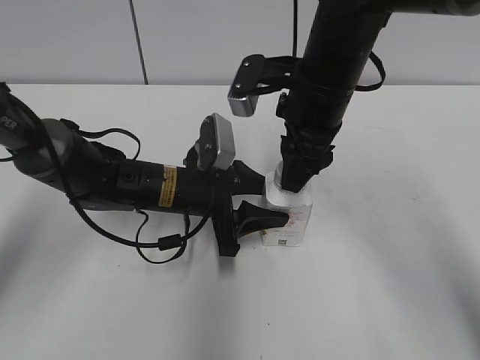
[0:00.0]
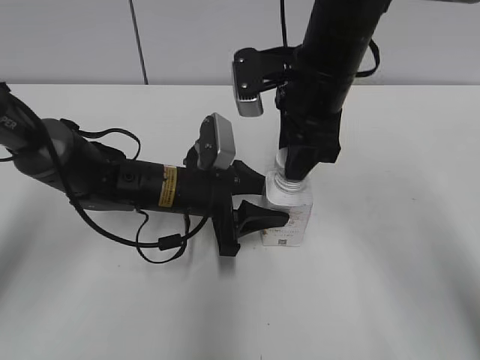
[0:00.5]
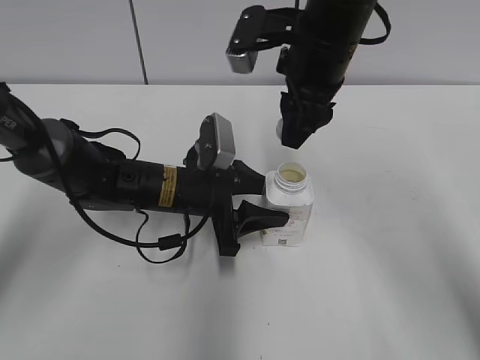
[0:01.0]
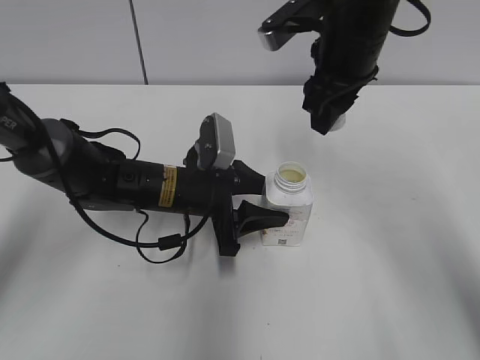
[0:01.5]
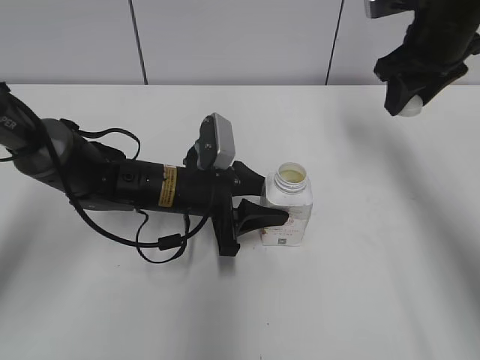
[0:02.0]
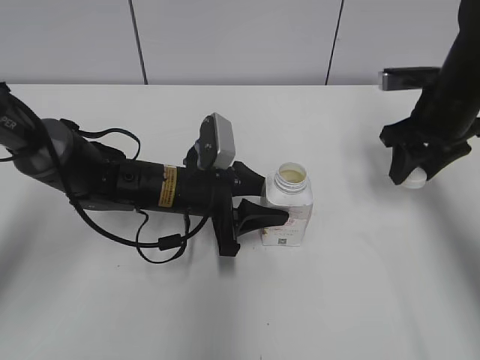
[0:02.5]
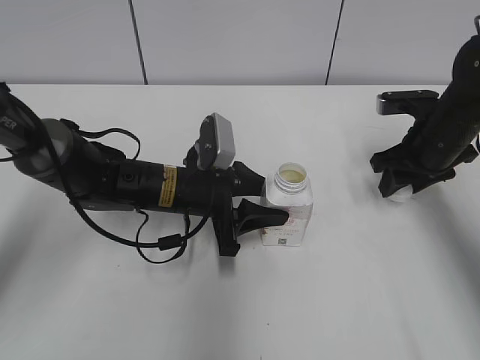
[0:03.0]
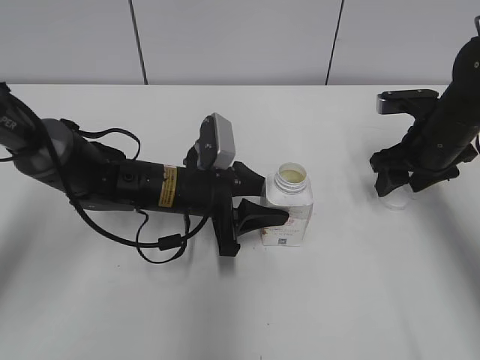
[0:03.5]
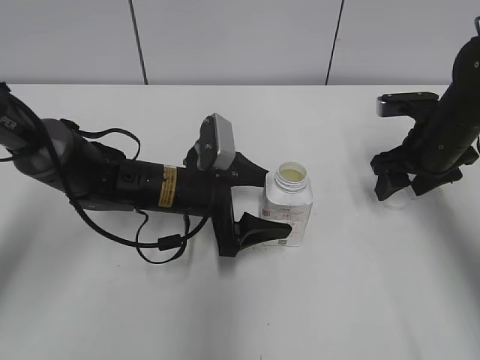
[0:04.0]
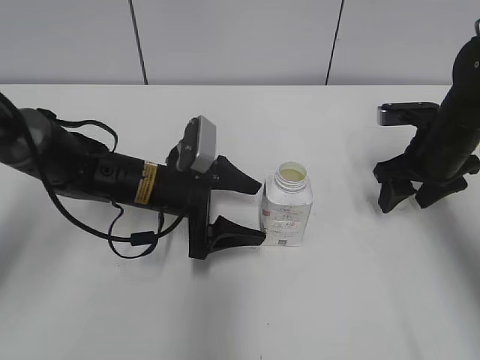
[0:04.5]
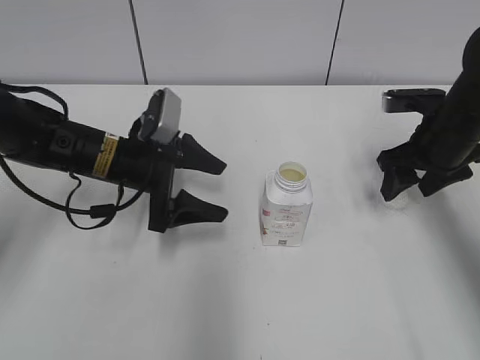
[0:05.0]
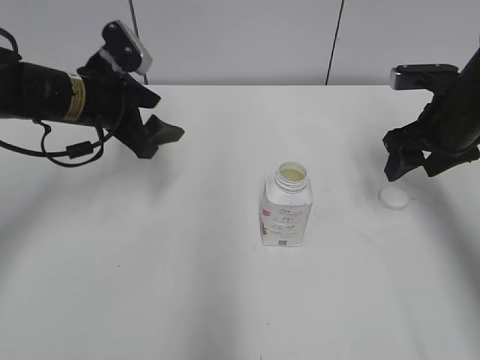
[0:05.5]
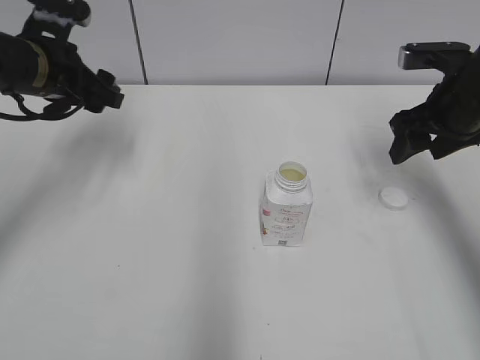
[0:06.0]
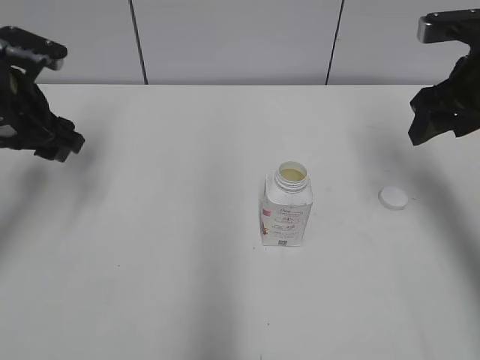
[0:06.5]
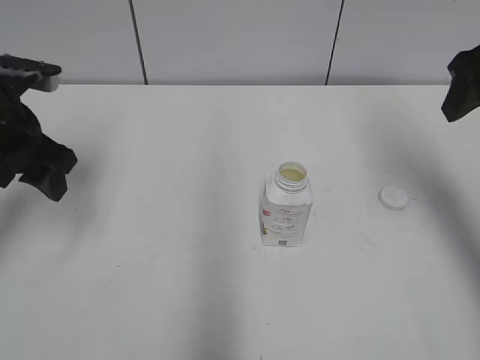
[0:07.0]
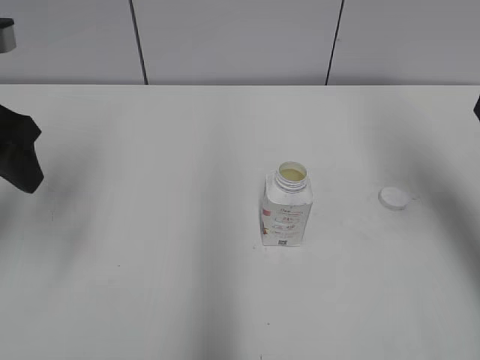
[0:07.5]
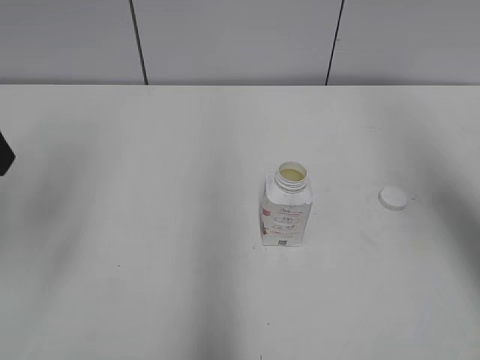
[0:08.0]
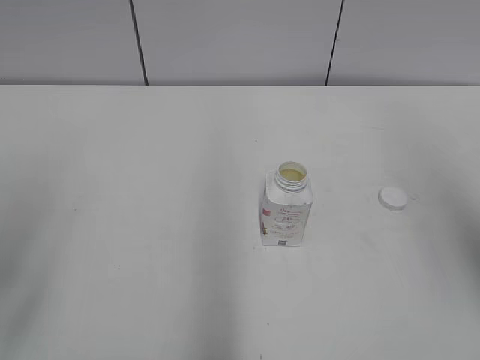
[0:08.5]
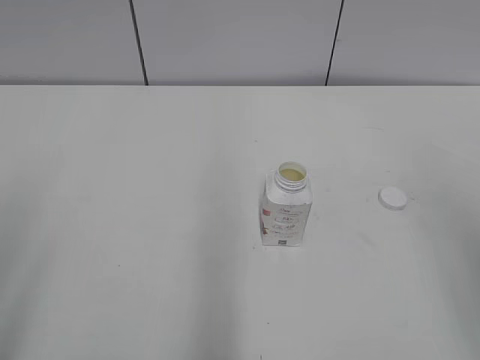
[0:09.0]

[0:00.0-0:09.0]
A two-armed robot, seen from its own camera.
0:00.0 to 0:02.0: The right gripper moves to the right and forward, about 15 cm.
0:02.0 to 0:04.5: The left gripper opens. The right gripper shifts about 15 cm downward, and opens.
0:04.5 to 0:07.0: The left gripper shifts some 20 cm to the left and upward. Meanwhile the right gripper heads upward, covering about 15 cm.
0:07.0 to 0:09.0: Both grippers travel together backward, about 25 cm.
